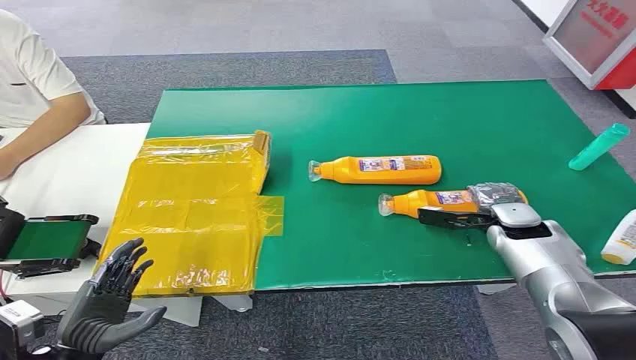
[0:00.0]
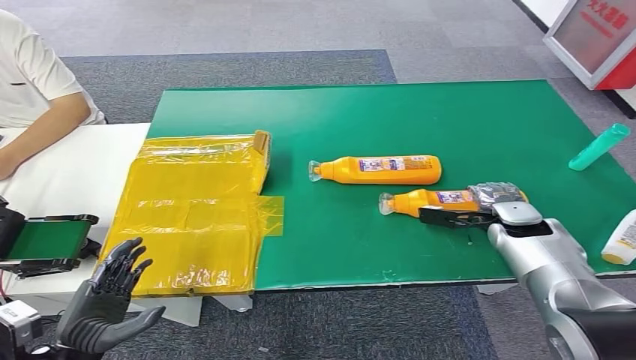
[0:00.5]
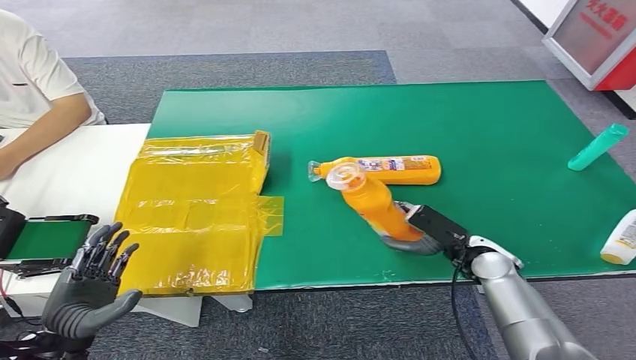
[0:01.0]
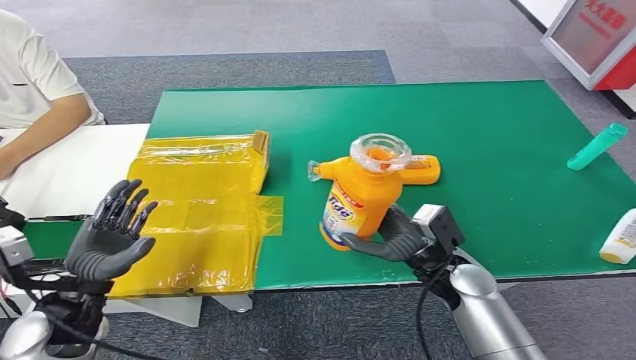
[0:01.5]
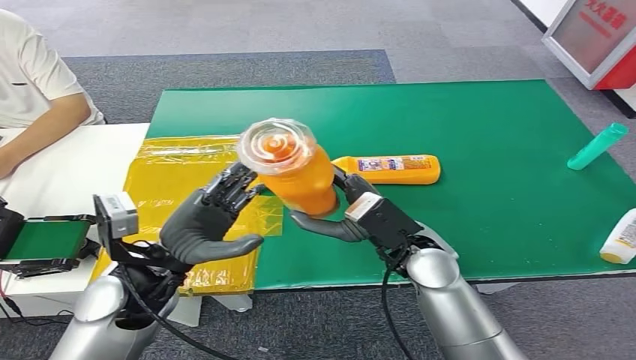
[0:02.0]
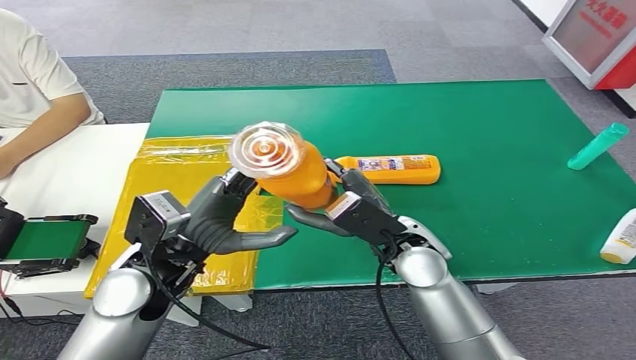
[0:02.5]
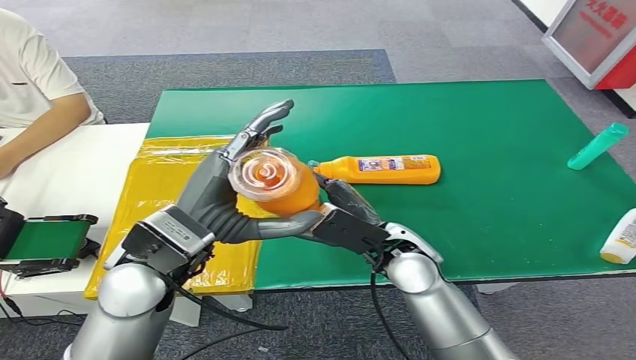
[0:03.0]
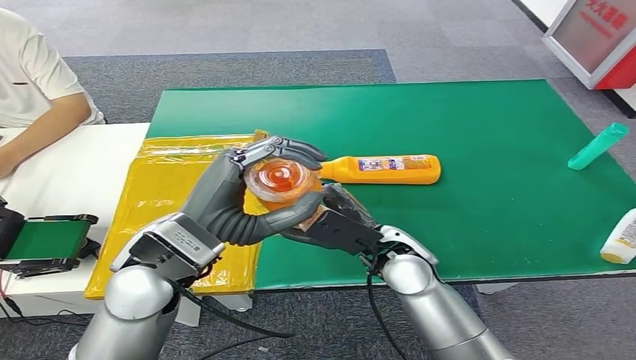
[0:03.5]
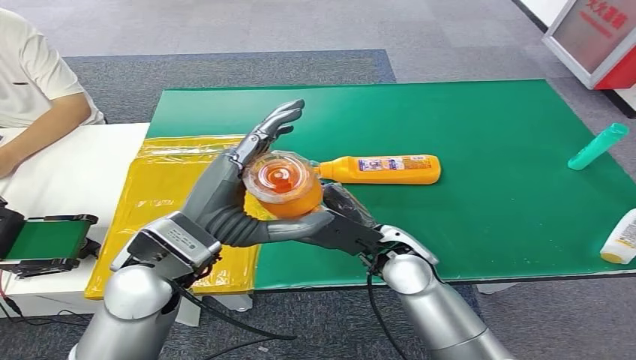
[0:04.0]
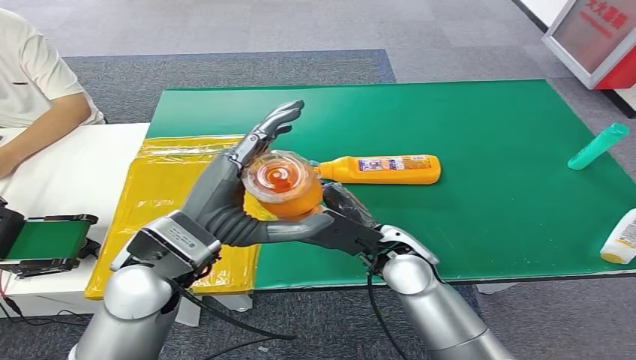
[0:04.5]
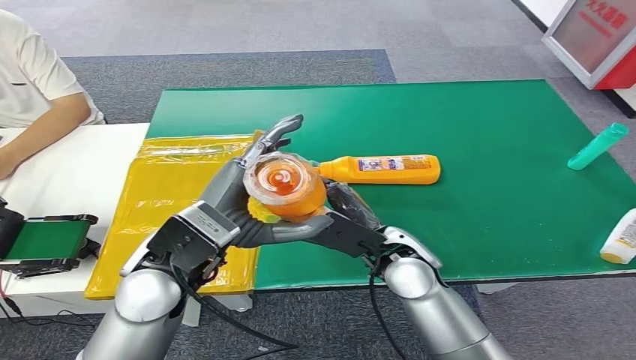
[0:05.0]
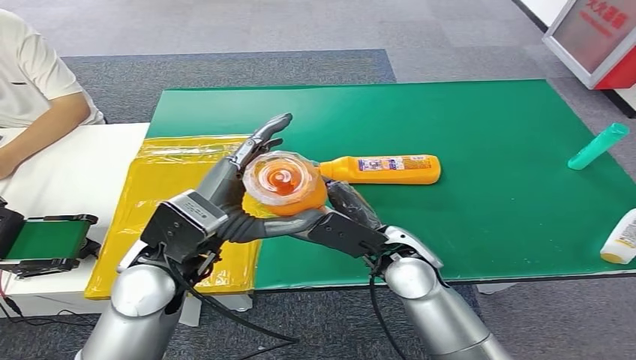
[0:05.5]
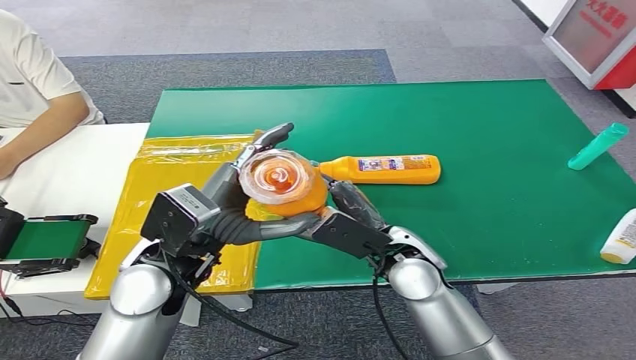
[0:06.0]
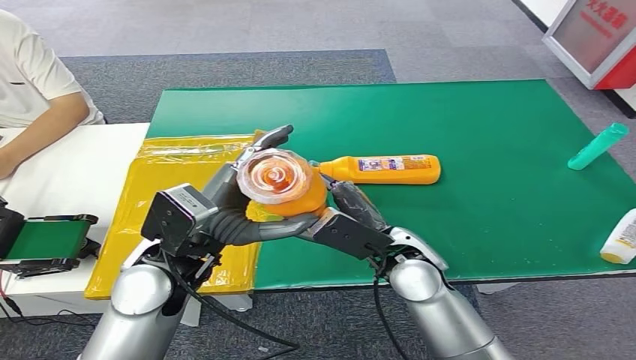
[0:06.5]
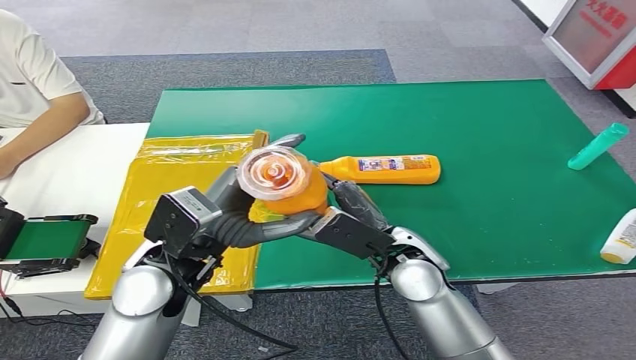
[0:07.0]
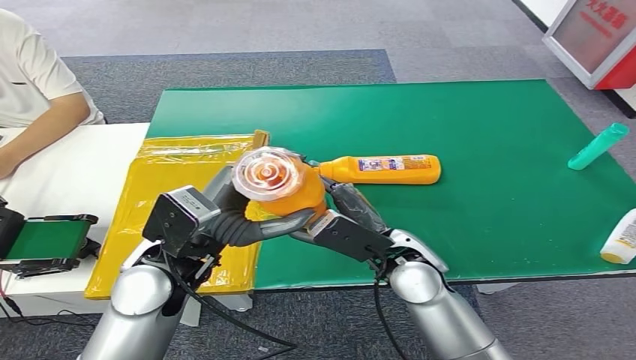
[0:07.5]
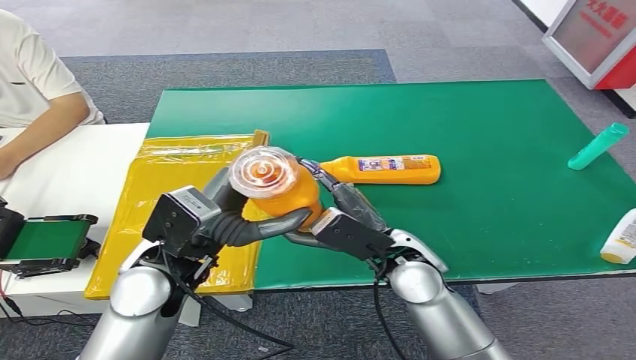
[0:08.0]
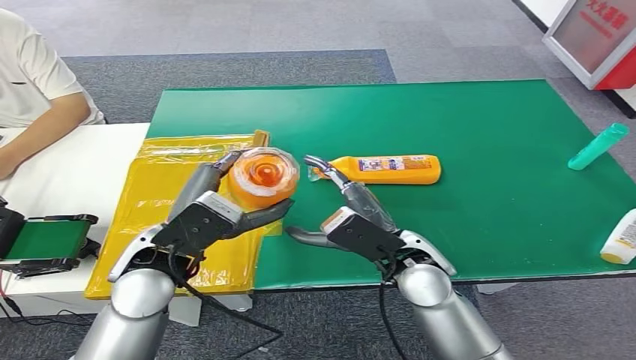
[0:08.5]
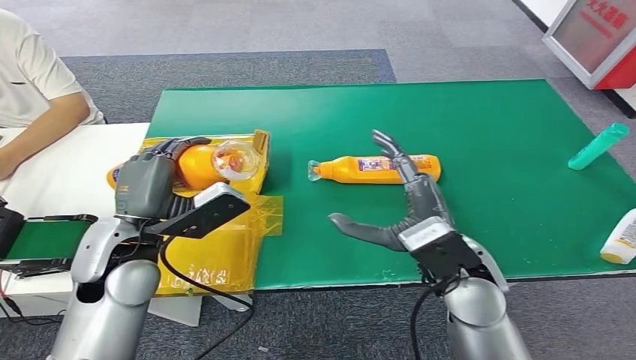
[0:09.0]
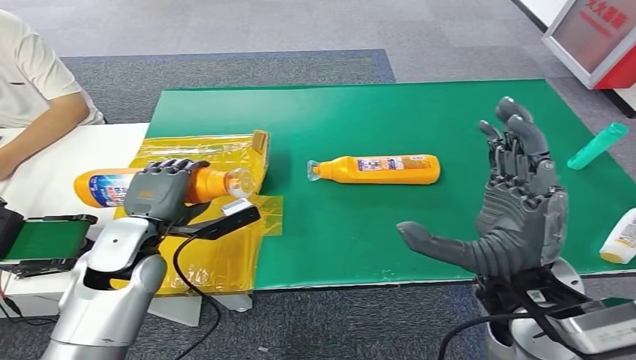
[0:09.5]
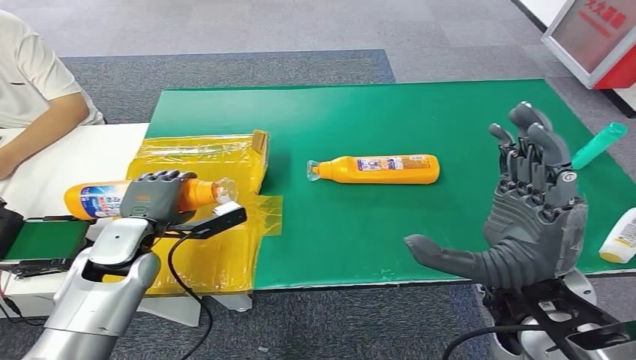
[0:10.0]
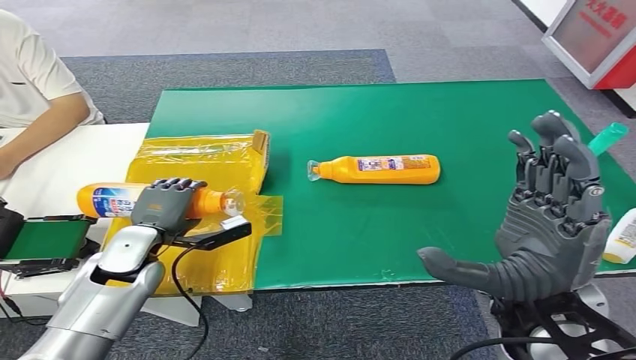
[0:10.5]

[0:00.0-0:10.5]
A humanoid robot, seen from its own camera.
Step, 0:00.0 to 0:01.5: Pick up the bottle from the table.
Step, 0:03.5 to 0:10.5: Turn the bottle to the front side.
0:02.0 to 0:04.0: The left hand moves upward and to the right, approximately 10 cm.
0:04.0 to 0:06.5: The hands make only small movements.

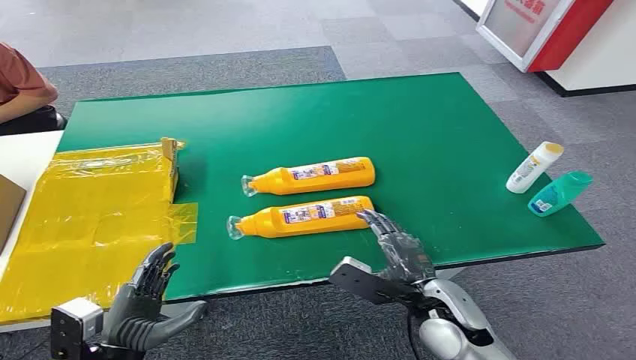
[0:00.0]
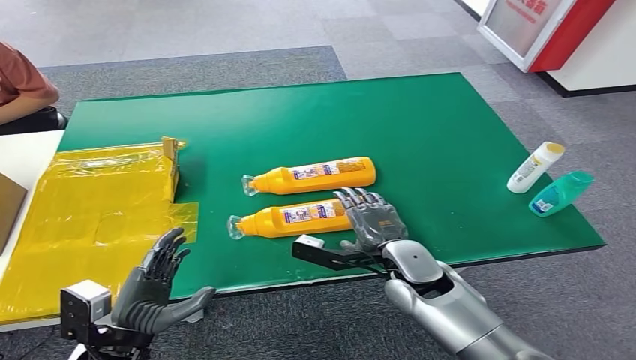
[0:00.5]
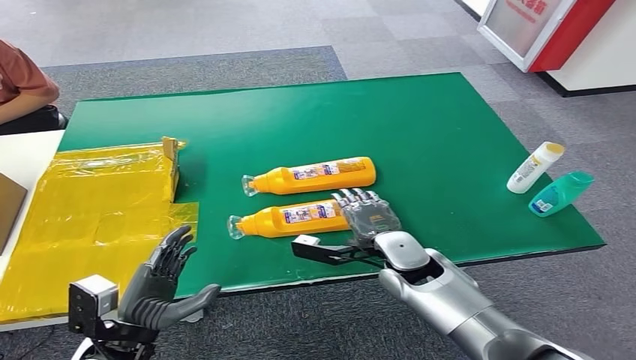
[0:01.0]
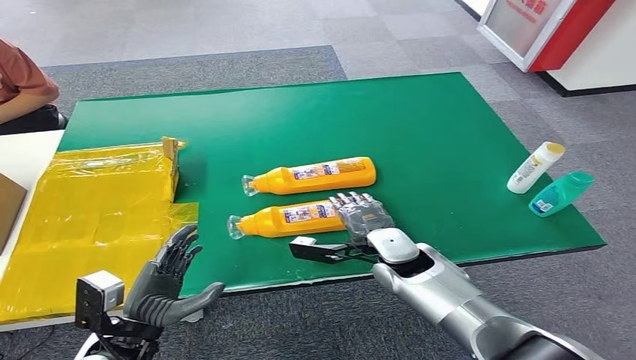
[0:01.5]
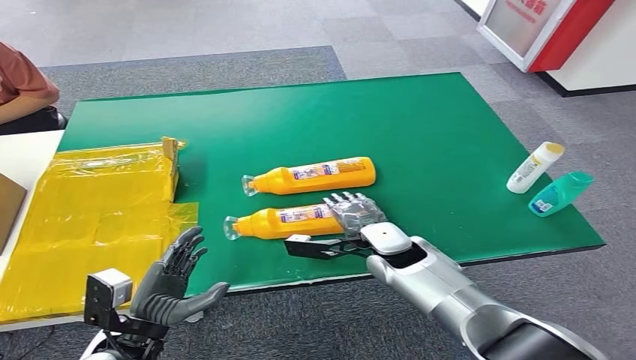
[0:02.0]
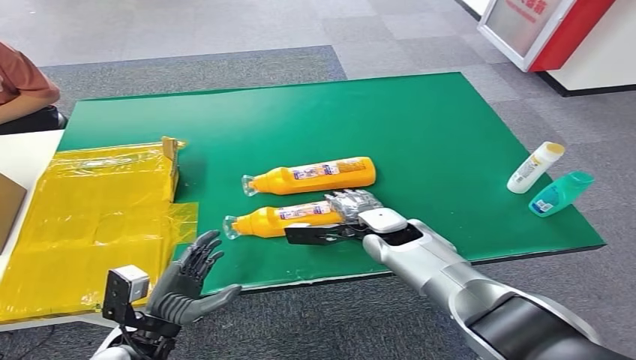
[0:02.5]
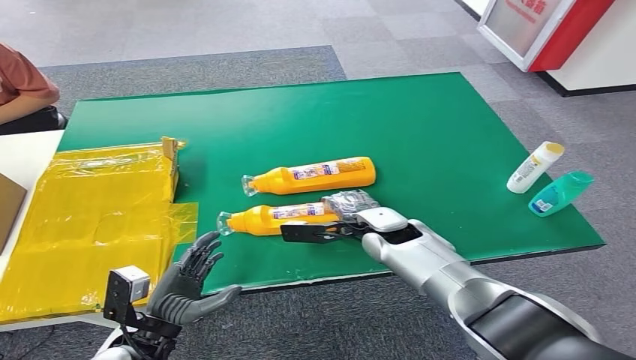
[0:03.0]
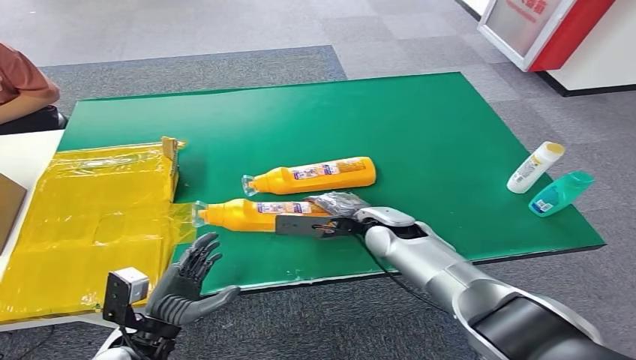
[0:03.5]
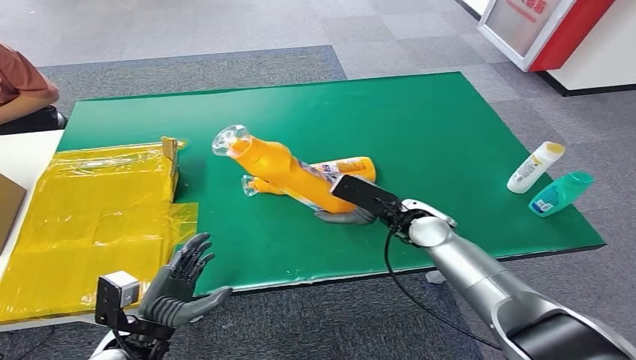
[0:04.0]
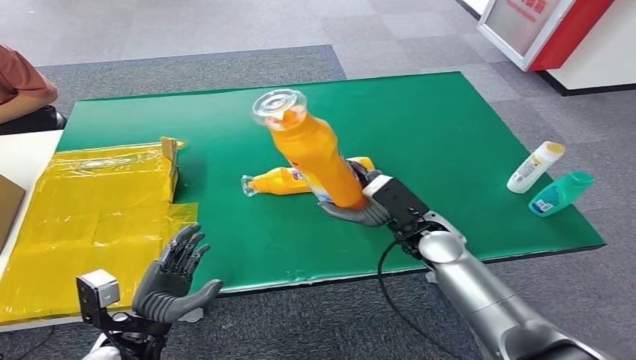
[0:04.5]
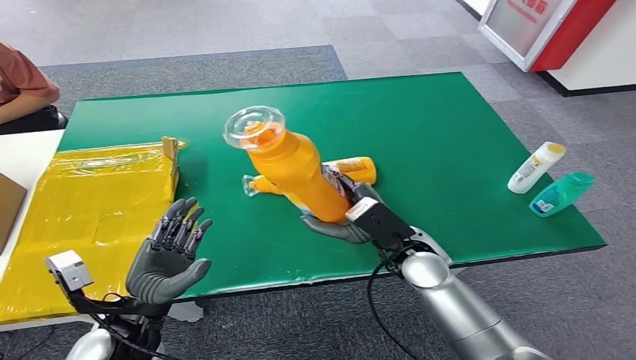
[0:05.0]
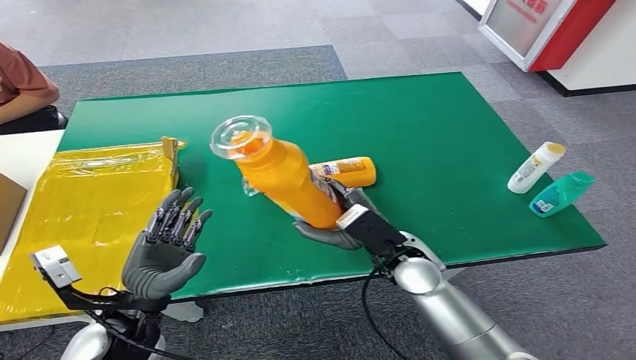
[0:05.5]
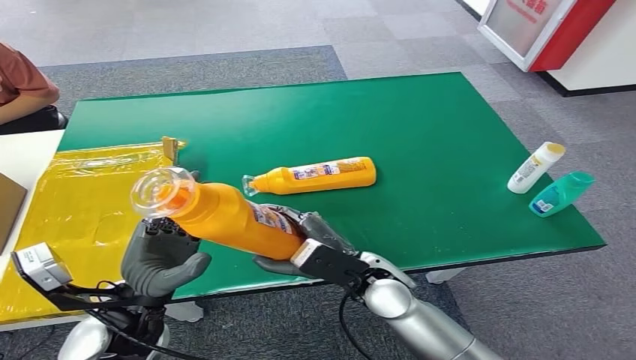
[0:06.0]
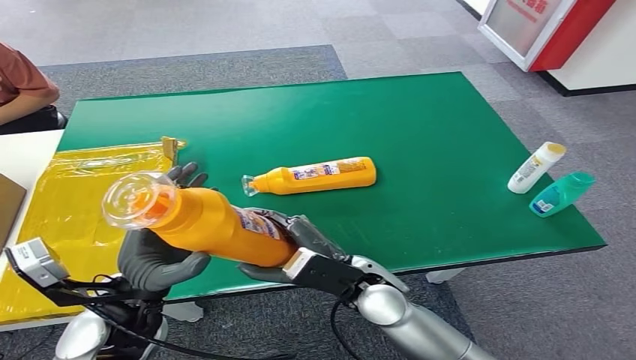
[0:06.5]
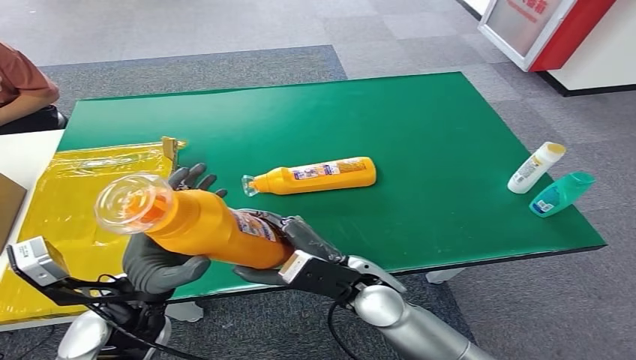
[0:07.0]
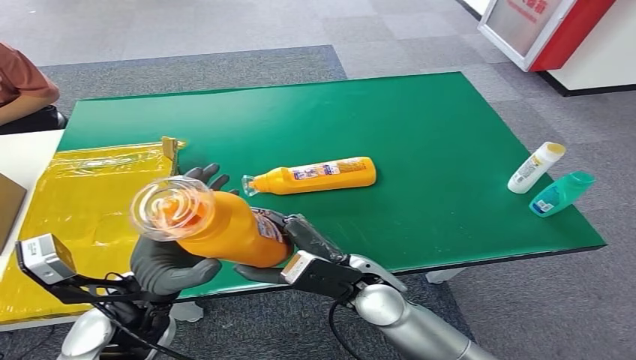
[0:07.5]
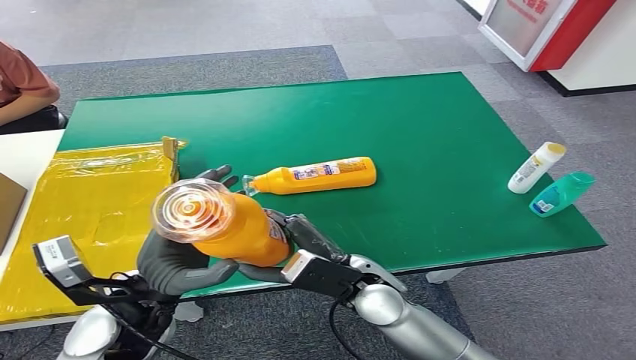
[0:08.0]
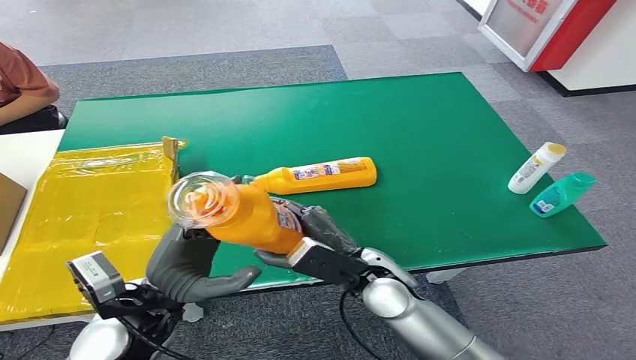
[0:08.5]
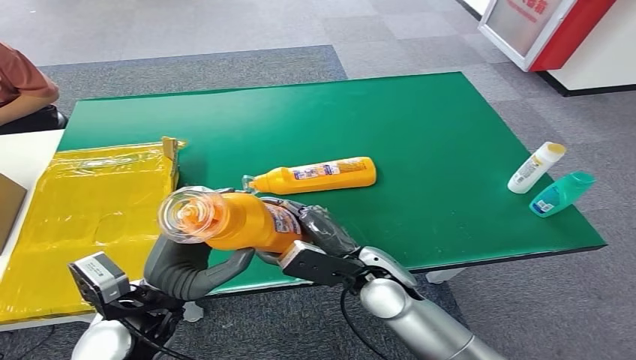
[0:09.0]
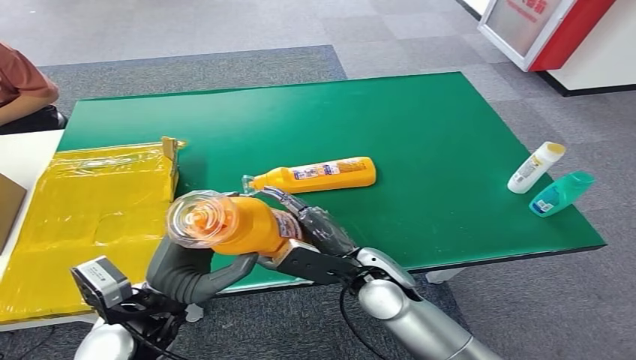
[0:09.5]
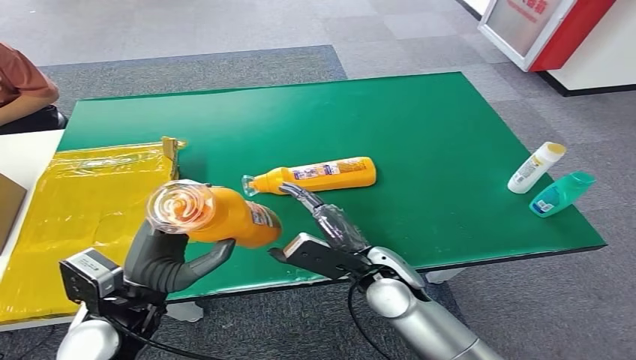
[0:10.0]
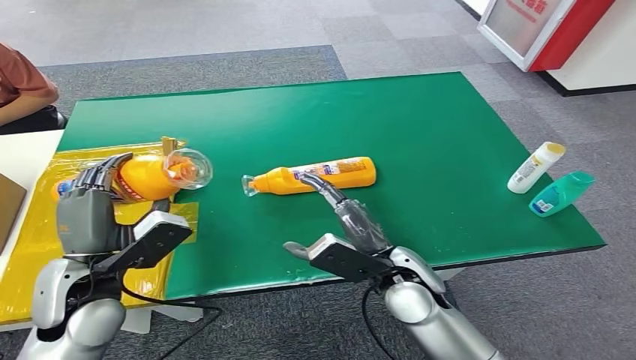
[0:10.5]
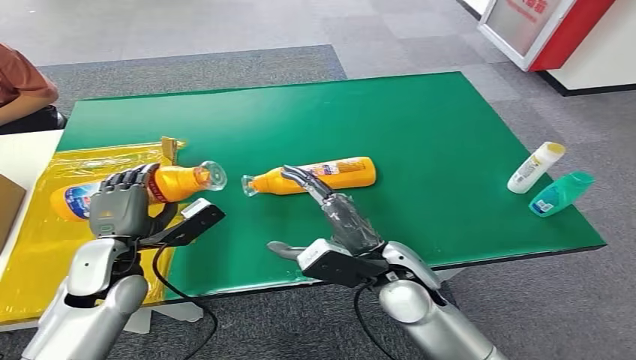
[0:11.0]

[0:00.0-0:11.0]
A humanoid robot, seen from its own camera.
Step, 0:00.0 to 0:04.0: Pick up the bottle from the table.
Step, 0:04.5 to 0:10.5: Turn the bottle to the front side.
0:03.5 to 0:05.5: The right hand shifts roughly 10 cm backward; the left hand is displaced upward by some 5 cm.
0:05.5 to 0:07.5: The left hand moves upward, about 5 cm, while the right hand shifts some 5 cm to the left.
0:09.0 to 0:11.0: The left hand is displaced forward and to the left by roughly 10 cm.
